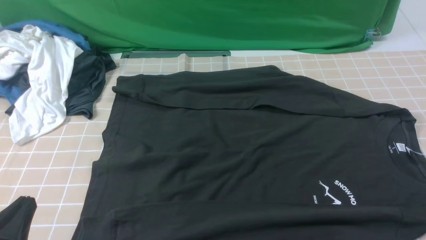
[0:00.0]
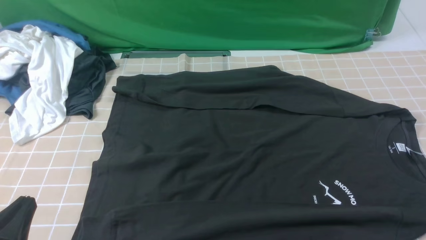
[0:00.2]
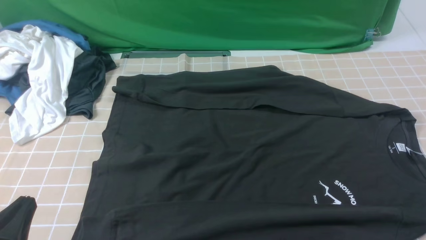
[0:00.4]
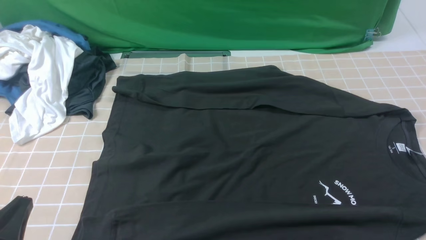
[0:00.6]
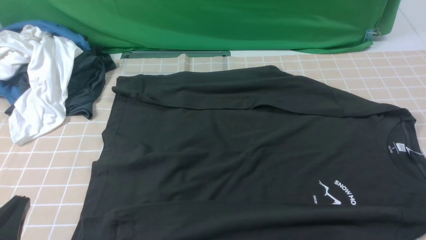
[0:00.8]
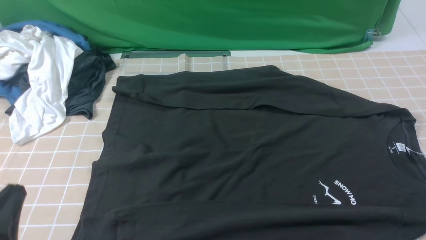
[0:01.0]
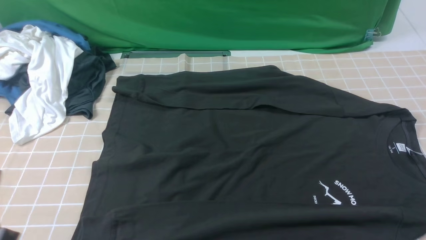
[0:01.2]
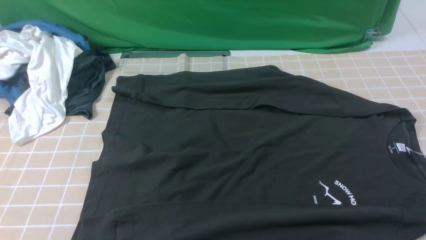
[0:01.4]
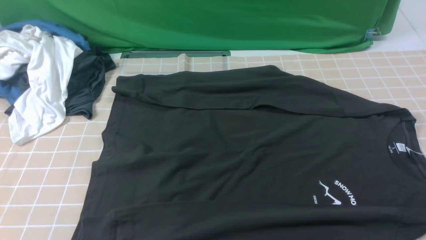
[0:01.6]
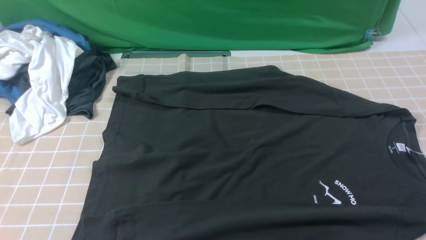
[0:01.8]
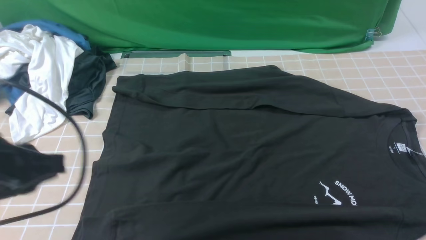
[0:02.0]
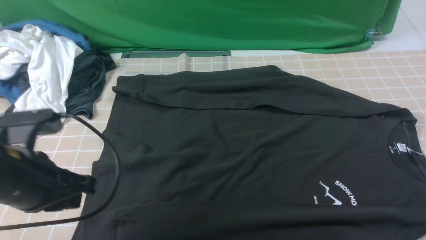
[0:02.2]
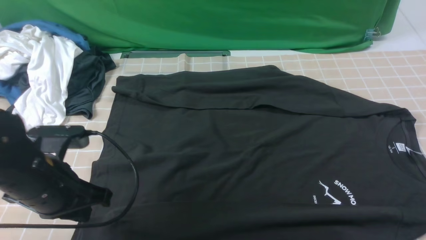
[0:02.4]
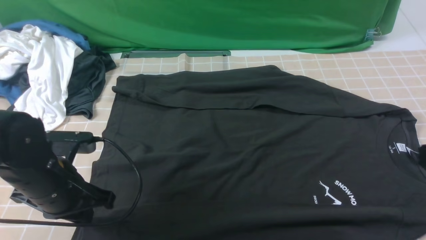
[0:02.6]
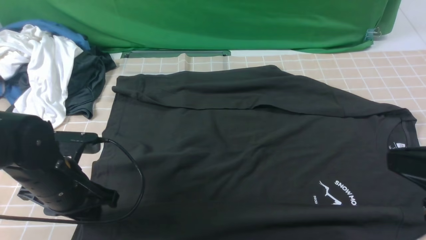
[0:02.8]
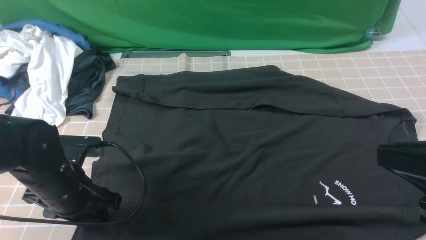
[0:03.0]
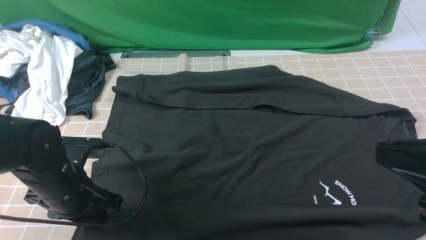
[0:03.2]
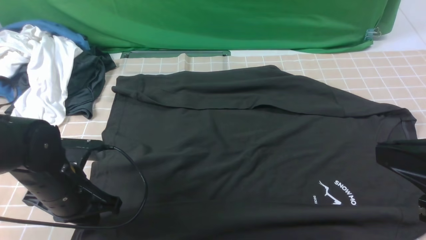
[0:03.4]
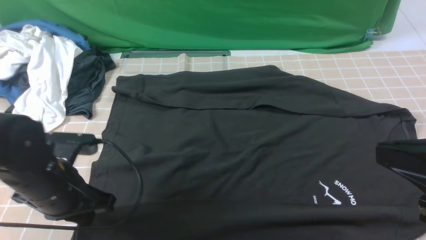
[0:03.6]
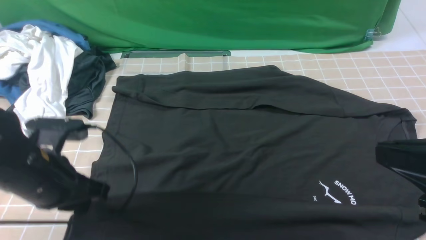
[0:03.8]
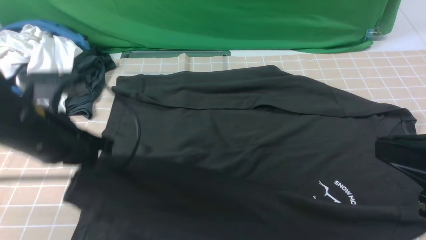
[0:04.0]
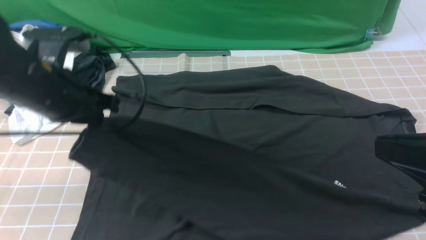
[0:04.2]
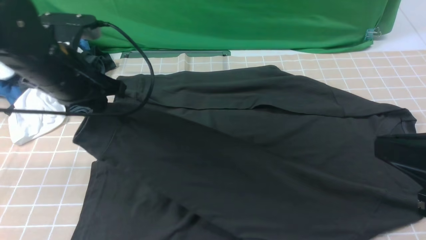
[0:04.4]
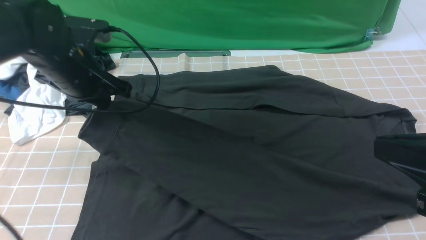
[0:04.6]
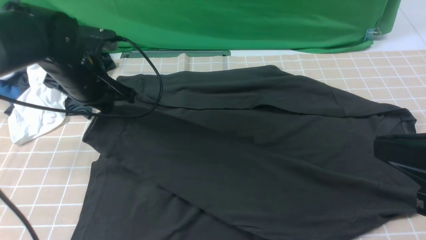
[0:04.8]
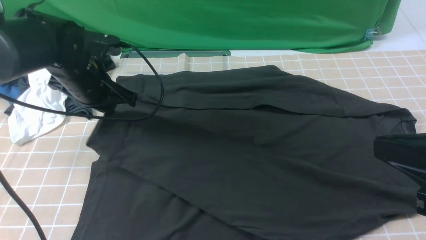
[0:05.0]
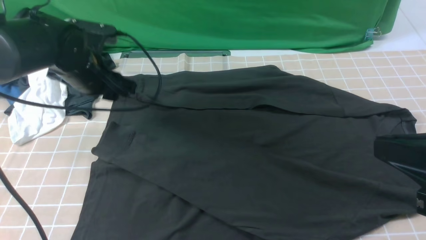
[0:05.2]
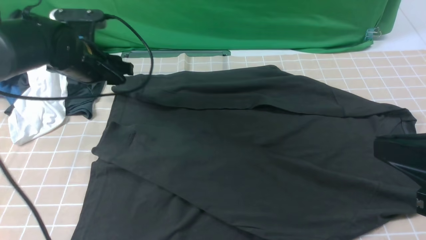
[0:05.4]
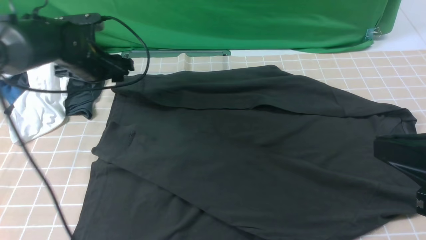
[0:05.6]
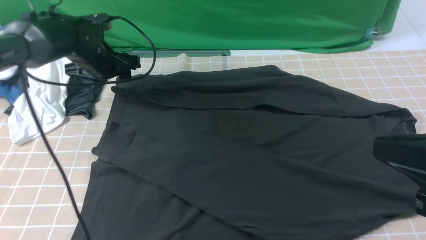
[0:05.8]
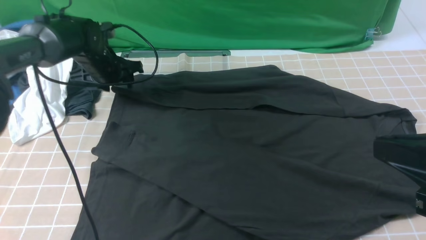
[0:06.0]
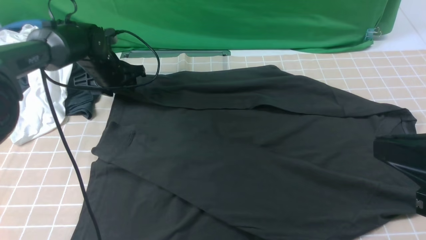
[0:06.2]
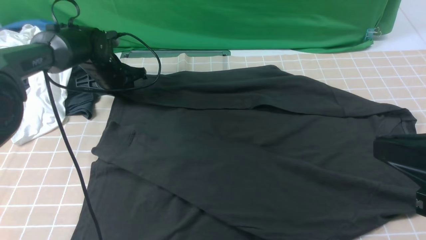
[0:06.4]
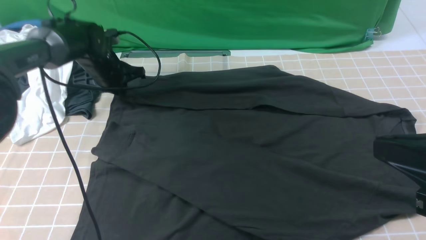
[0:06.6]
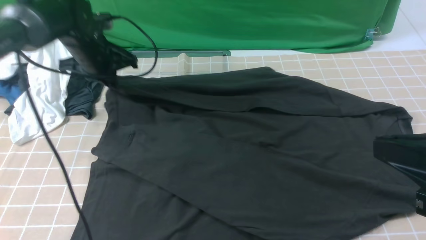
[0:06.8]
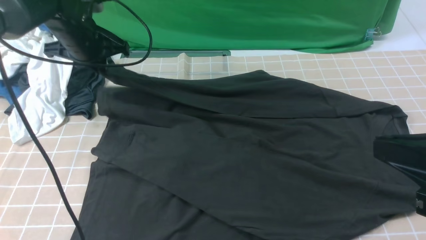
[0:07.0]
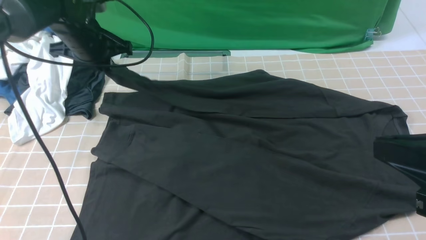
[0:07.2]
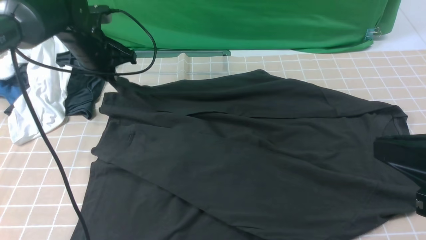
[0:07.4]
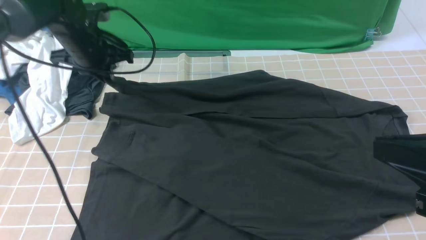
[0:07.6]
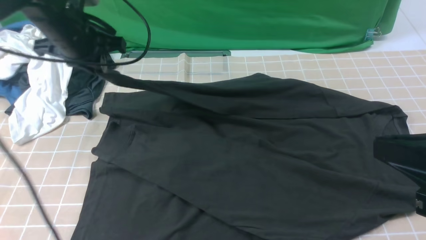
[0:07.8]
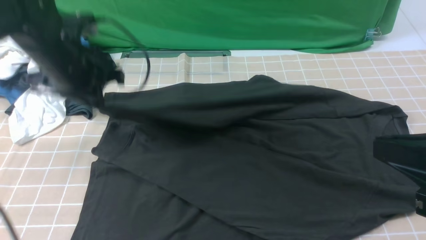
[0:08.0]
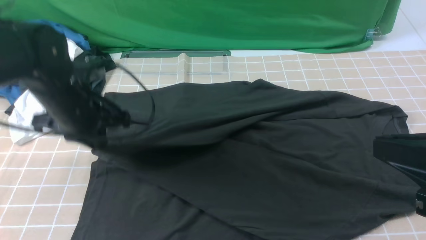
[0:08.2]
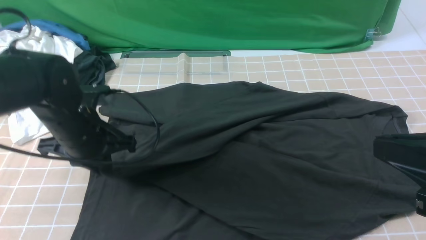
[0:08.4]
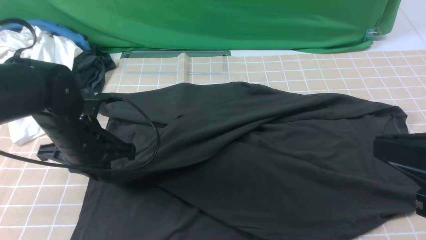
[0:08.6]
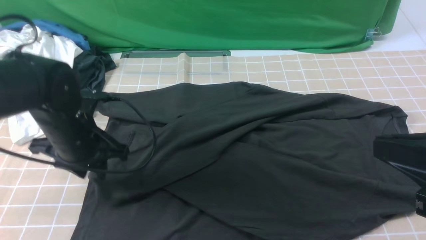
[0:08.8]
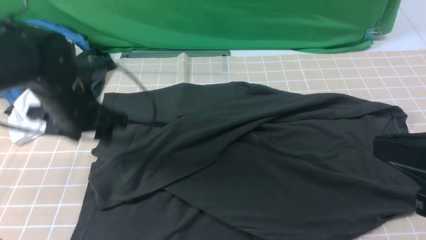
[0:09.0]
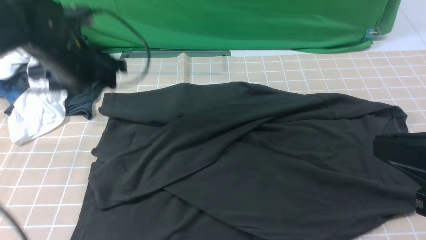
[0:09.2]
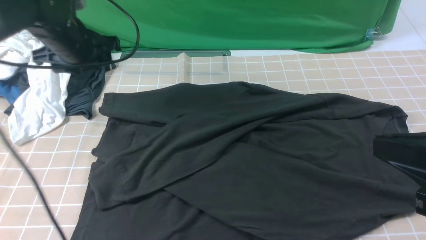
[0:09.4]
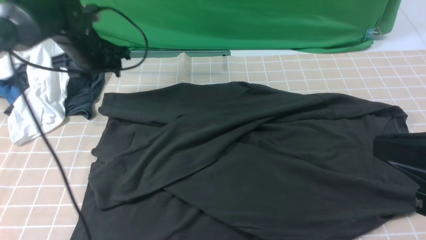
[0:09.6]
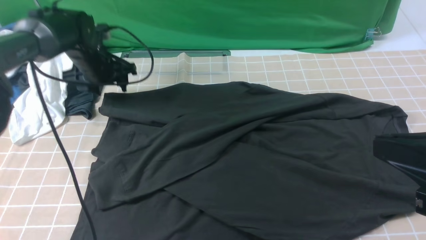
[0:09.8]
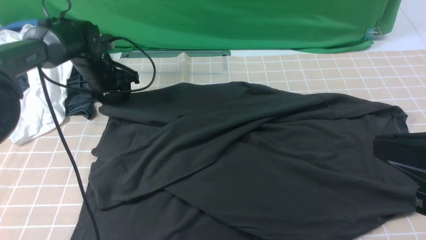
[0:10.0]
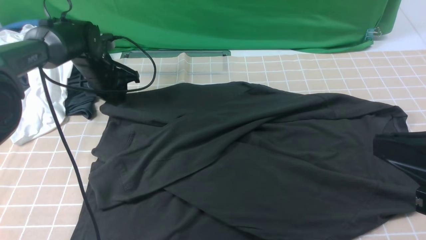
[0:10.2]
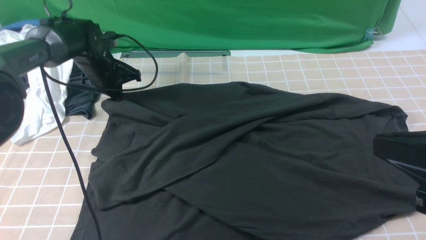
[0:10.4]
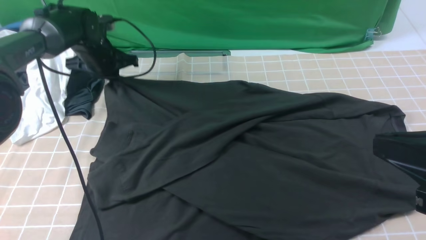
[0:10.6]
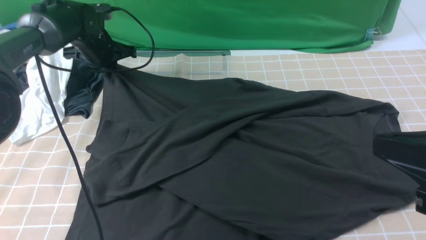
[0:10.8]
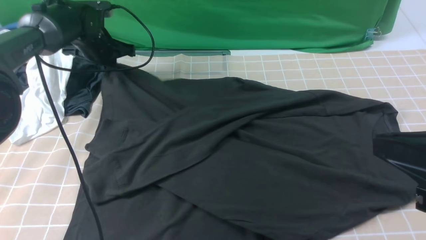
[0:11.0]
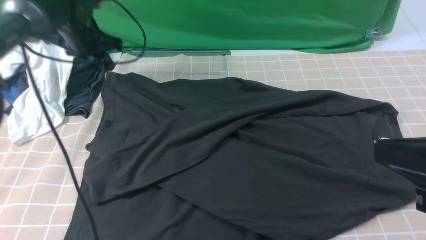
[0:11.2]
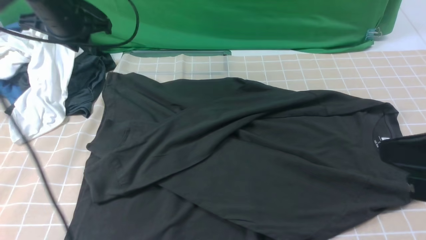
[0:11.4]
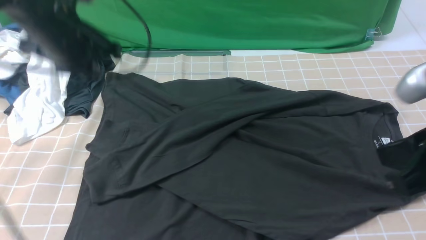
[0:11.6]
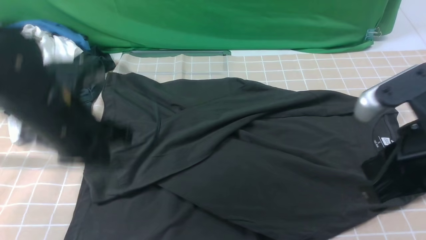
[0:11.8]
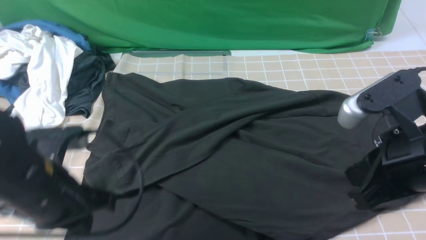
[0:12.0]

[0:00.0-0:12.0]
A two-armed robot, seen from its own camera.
Step, 0:00.0 to 0:03.4: use the left arm to clamp the cuff closest to it.
Step, 0:03.6 to 0:05.0: use the left arm to drag and place the cuff at the centered position on the left edge of the fabric.
Step, 0:05.2 to 0:06.8: use the left arm to clamp the cuff farthest from it.
Step, 0:07.2 to 0:08.8: use the left arm to drag and drop the cuff onto the cuff closest to the left arm.
0:00.0 to 0:01.6: The left gripper shifts roughly 10 cm upward.
0:01.6 to 0:03.0: The left gripper moves forward and downward, about 20 cm, and opens up. The right gripper goes about 15 cm upward, to the left and forward, and closes its fingers.
0:03.0 to 0:04.4: The left gripper heads upward and forward, covering some 15 cm, and closes.
0:04.4 to 0:06.0: The left gripper heads forward and downward, covering approximately 20 cm, and opens.
0:06.0 to 0:07.6: The left gripper shifts some 10 cm upward, and closes.
0:07.6 to 0:09.0: The left gripper moves backward, about 10 cm, and opens.
0:09.0 to 0:10.4: The left gripper shifts some 20 cm forward and downward, and closes up.
0:10.4 to 0:12.0: The left gripper is displaced backward by some 30 cm. Meanwhile the right gripper shifts approximately 5 cm forward.

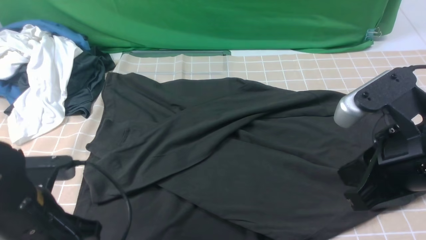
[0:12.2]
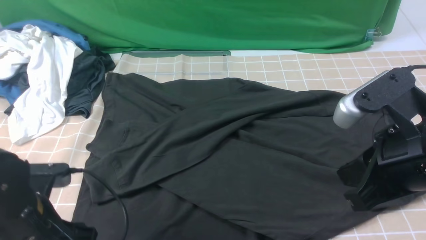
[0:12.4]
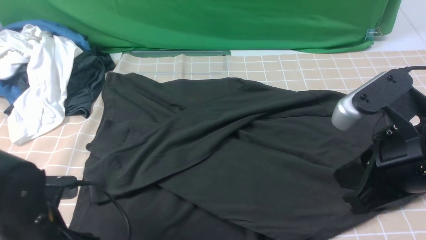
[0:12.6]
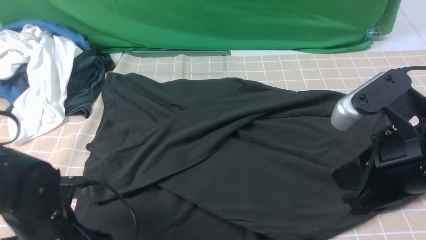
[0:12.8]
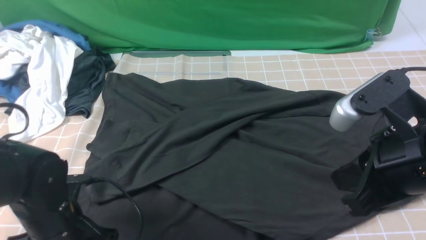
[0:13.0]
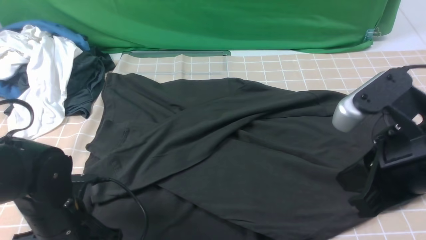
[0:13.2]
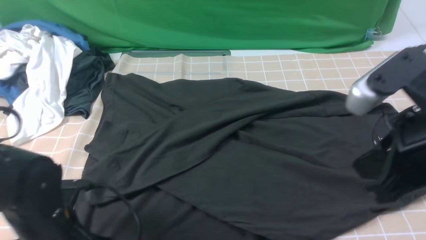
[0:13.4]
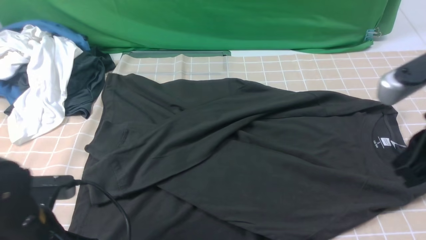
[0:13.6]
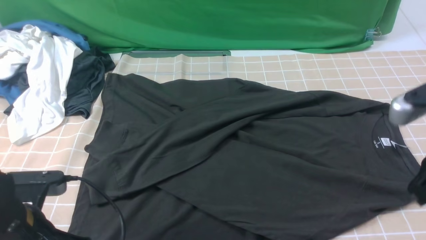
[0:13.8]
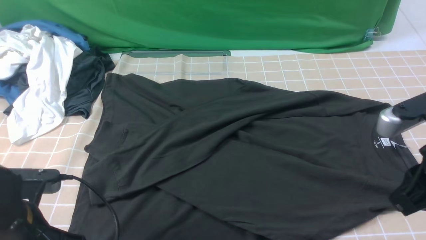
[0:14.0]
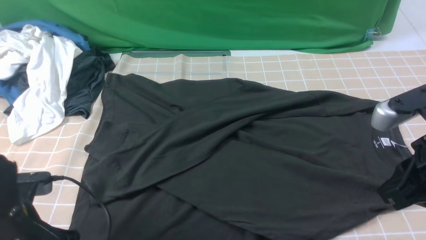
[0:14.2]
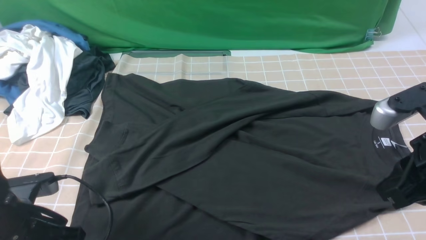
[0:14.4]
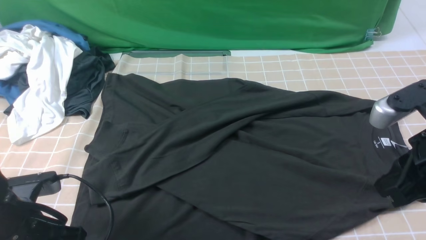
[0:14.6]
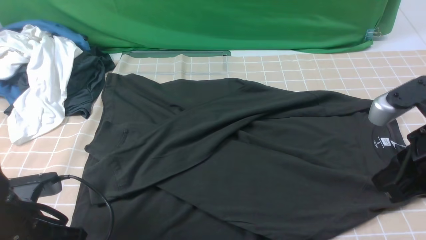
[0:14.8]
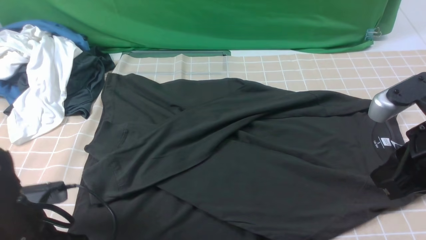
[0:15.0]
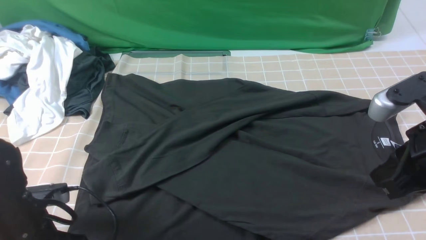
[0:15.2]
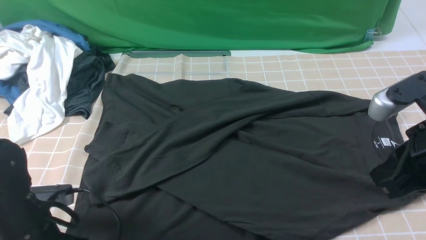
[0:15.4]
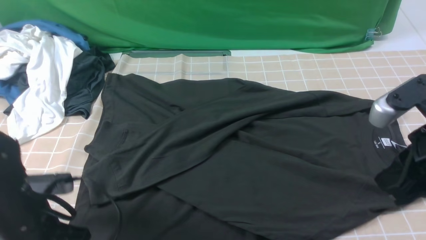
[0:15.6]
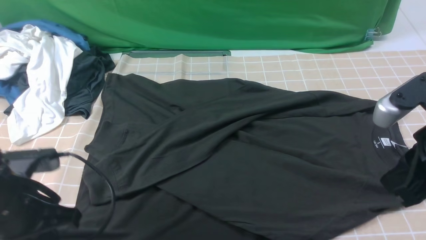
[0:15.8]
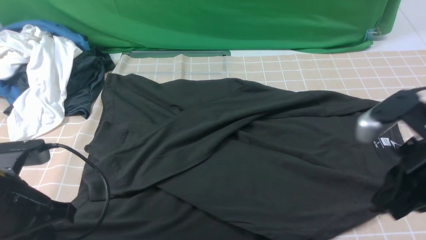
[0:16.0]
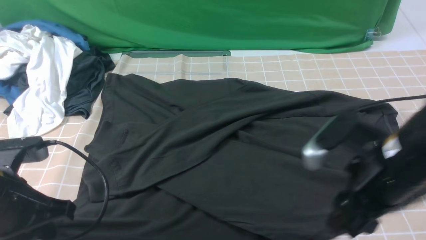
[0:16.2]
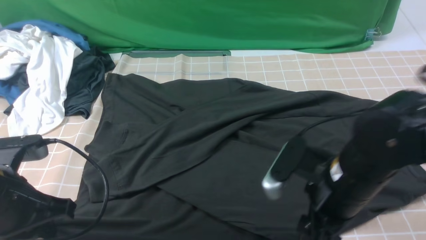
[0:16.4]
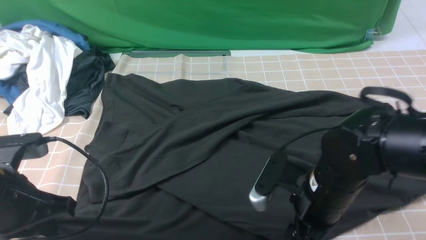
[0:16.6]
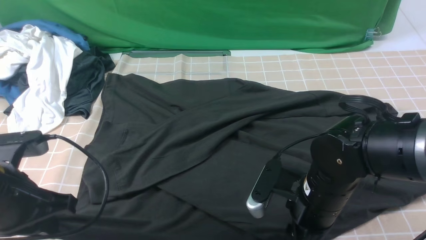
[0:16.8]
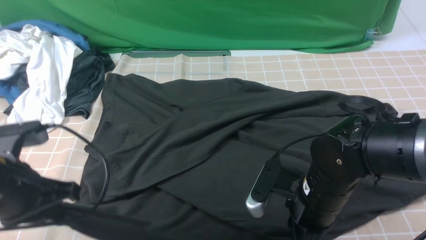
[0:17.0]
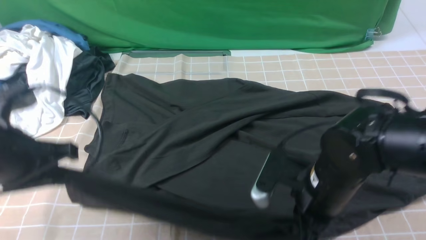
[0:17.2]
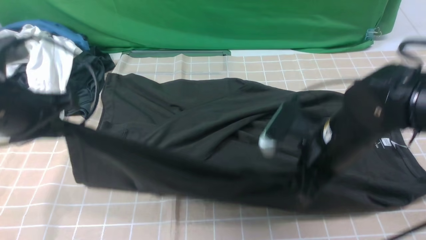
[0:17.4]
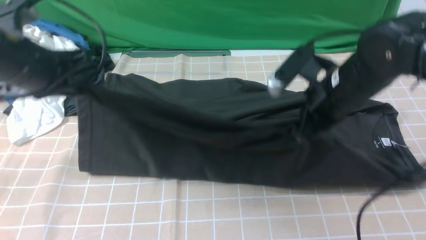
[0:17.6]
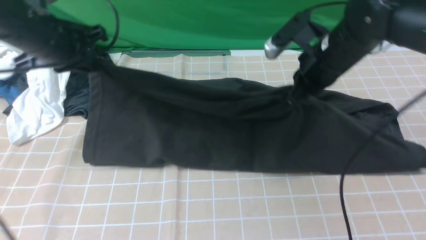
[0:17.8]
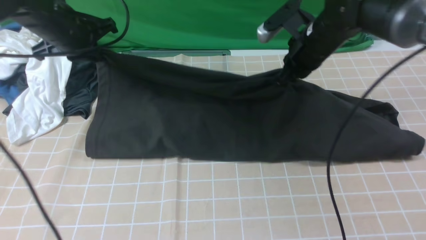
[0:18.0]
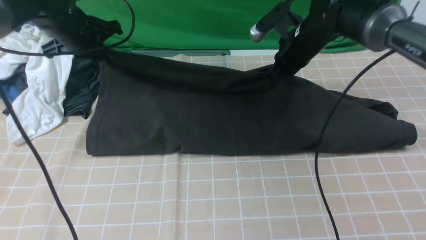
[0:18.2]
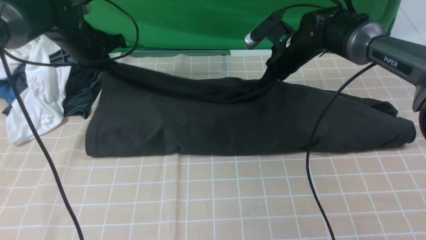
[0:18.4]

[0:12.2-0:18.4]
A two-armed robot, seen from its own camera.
Step, 0:12.2 to 0:17.0: use both arms simultaneously to clamp the lower edge of the clothing fabric.
0:12.2 to 0:13.8: The right gripper is displaced to the right by approximately 5 cm. Meanwhile the left gripper closes up.
0:13.8 to 0:15.4: The left gripper ends up some 5 cm from where it was, and opens and closes again.
0:15.4 to 0:16.8: The left gripper is displaced upward by approximately 10 cm. Meanwhile the right gripper travels downward and to the left by approximately 20 cm, and opens.
0:16.8 to 0:18.4: Both grippers move forward, roughly 30 cm.
